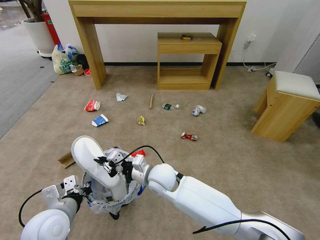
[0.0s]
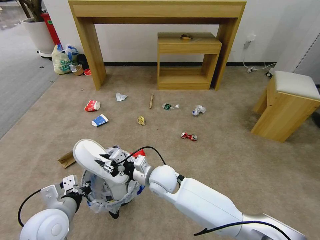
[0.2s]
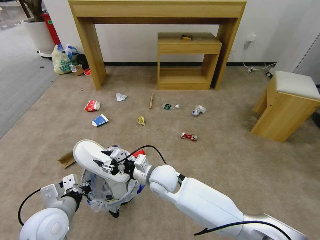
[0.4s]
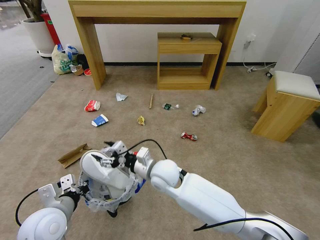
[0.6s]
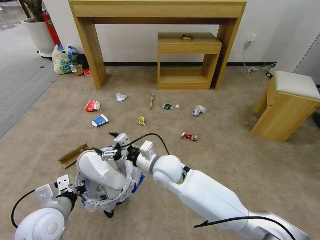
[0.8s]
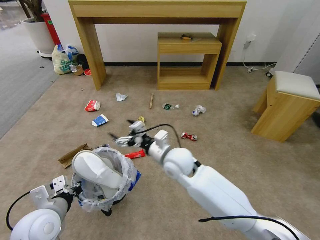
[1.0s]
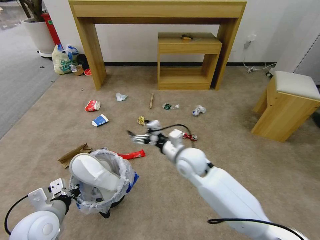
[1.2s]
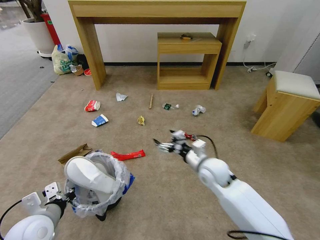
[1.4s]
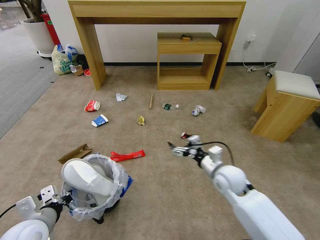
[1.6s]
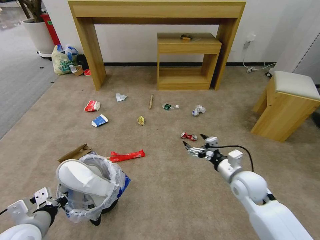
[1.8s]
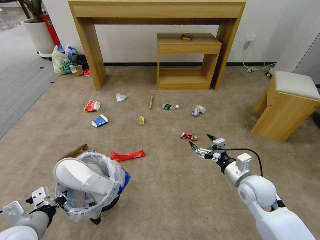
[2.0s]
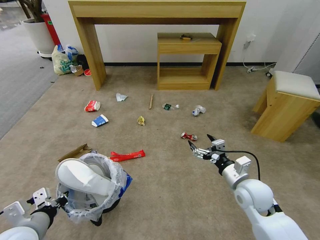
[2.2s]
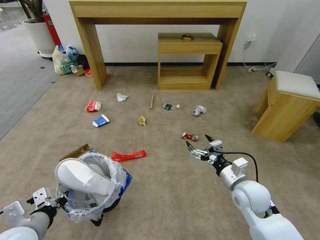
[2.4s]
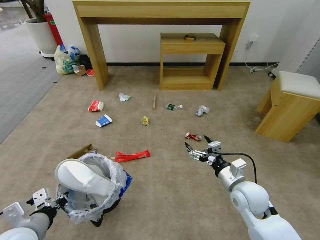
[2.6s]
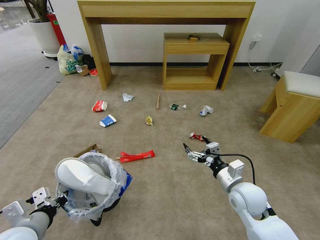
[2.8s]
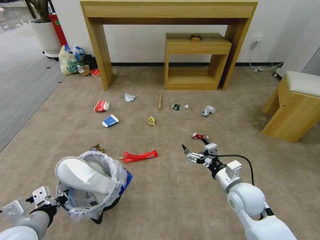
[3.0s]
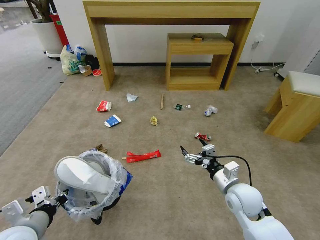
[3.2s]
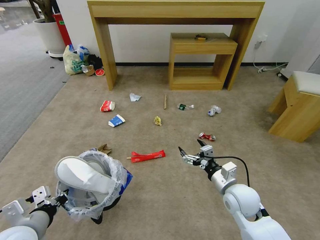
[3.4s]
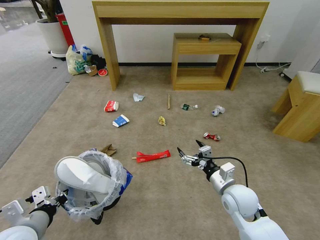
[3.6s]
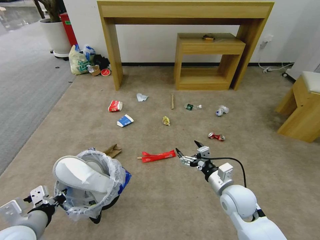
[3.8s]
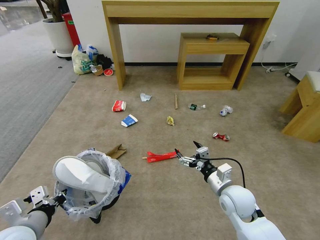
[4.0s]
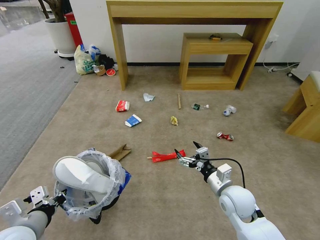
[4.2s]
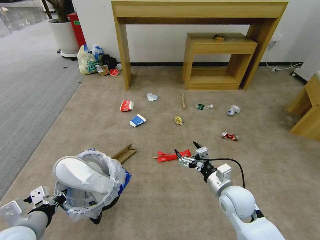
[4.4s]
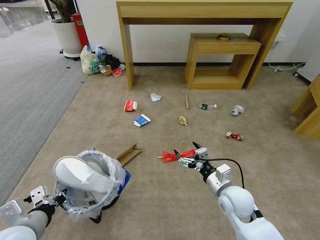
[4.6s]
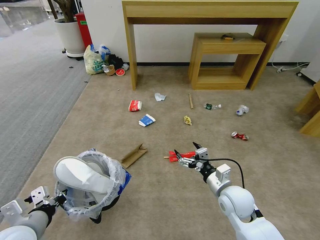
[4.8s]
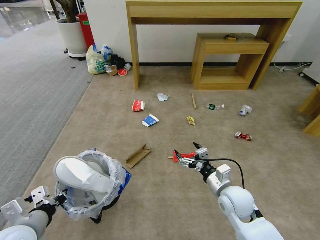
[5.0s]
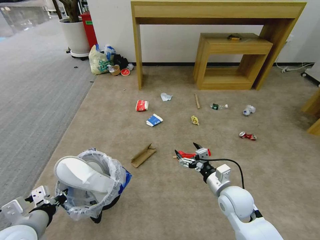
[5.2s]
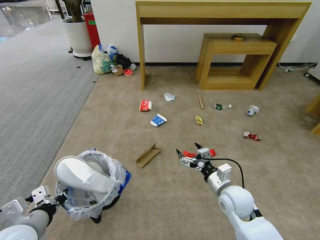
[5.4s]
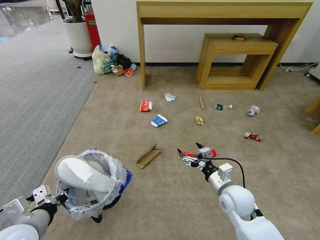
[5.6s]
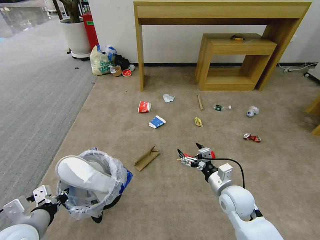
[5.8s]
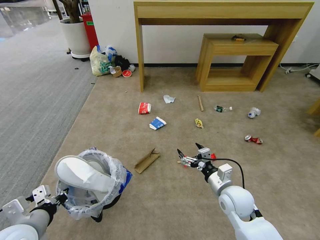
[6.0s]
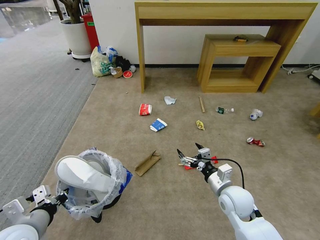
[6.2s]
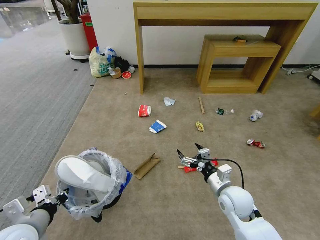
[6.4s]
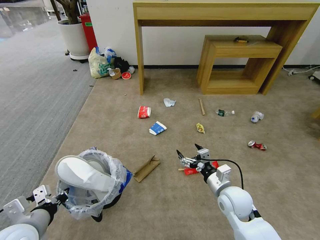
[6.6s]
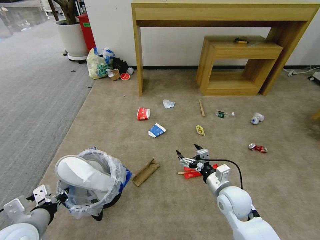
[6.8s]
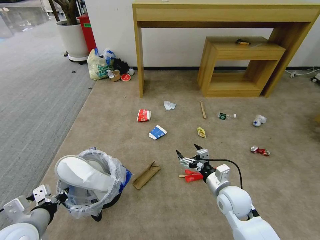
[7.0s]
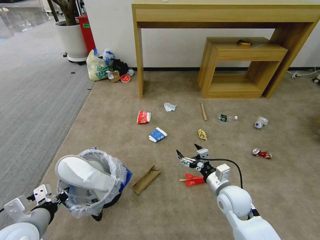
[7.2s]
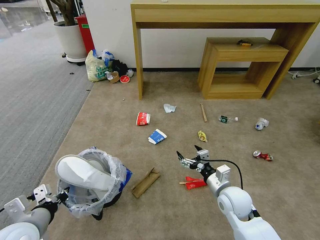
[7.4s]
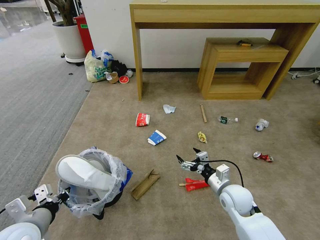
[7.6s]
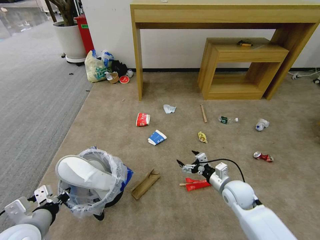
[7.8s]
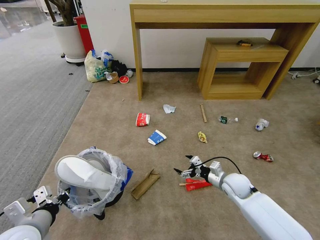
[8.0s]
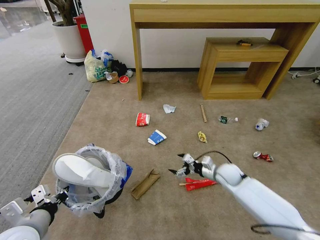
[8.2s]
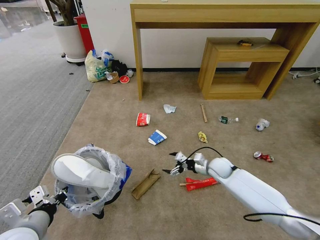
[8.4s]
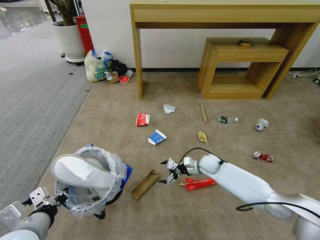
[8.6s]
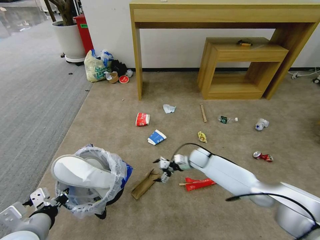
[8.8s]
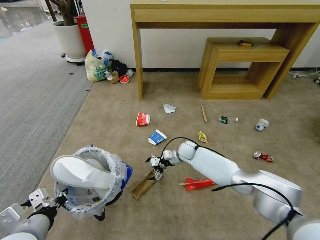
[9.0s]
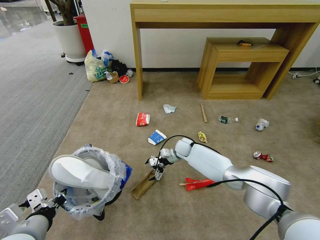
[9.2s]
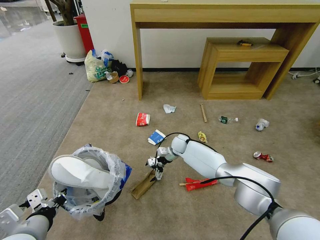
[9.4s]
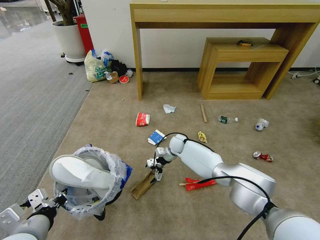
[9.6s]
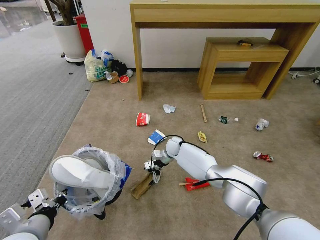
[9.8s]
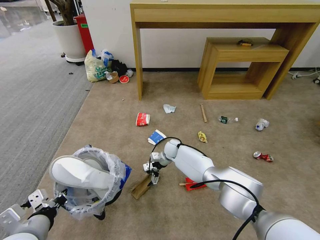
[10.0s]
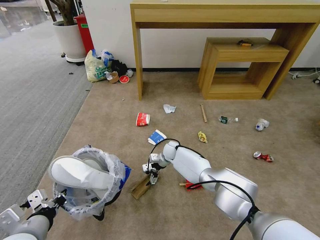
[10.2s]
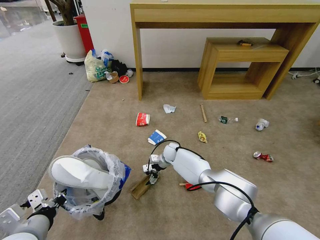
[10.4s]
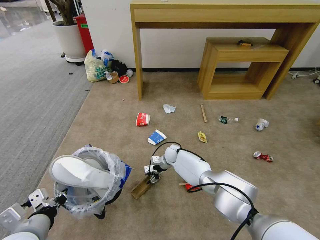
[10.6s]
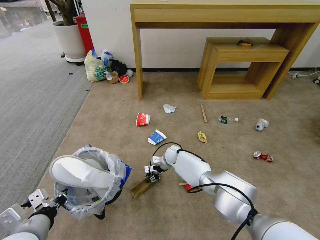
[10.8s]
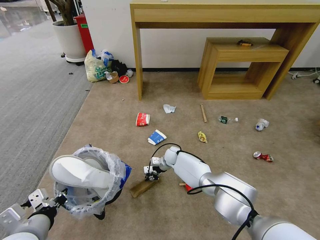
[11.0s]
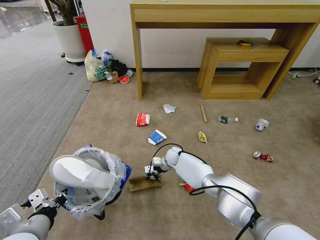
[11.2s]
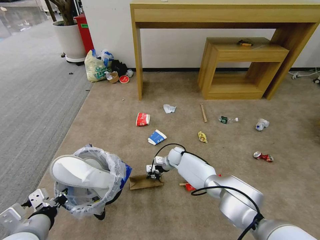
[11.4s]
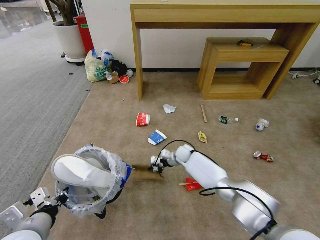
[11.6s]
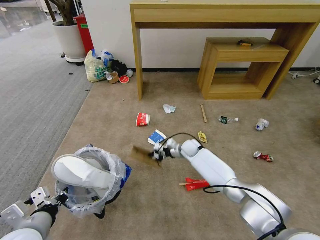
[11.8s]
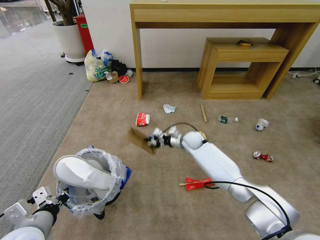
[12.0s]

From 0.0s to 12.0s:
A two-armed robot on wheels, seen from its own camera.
Task of the whole recording: Pick up the trash bin and place the garbage on the floor into it.
From 0.0s to 1.6s: The right gripper moves to the right, some 25 cm, and opens. The left gripper moves to the left, some 5 cm.
From 1.6s to 3.0s: The right gripper heads backward, covering roughly 5 cm.
From 7.6s to 9.0s: The right gripper travels forward and to the left by about 25 cm.
From 9.0s to 10.4s: The right gripper shifts about 5 cm to the left.
From 10.4s to 12.0s: The right gripper goes some 15 cm upward and to the right, and closes.

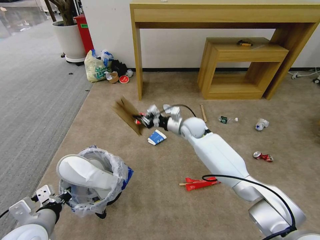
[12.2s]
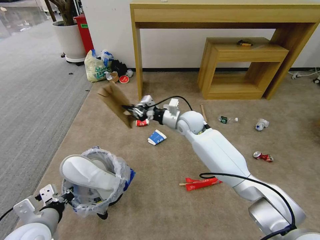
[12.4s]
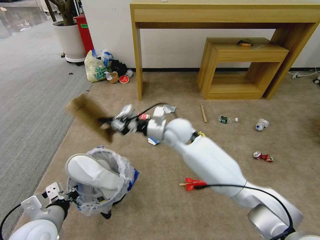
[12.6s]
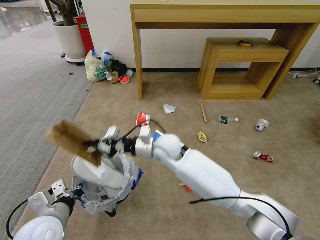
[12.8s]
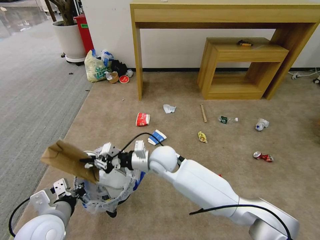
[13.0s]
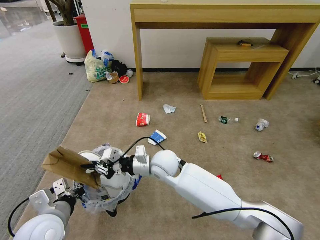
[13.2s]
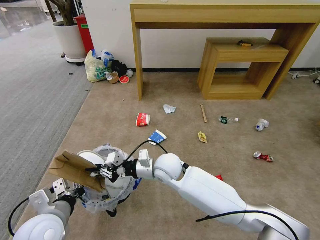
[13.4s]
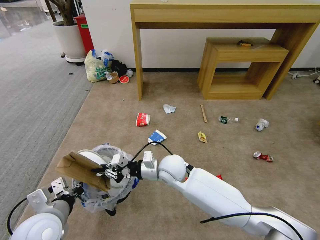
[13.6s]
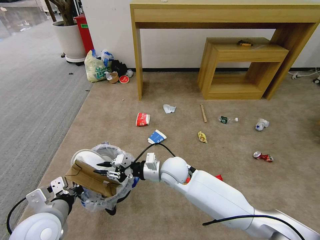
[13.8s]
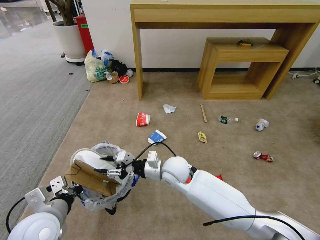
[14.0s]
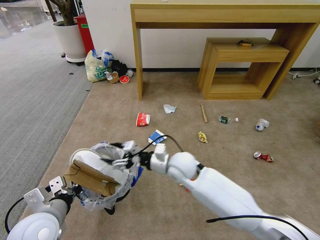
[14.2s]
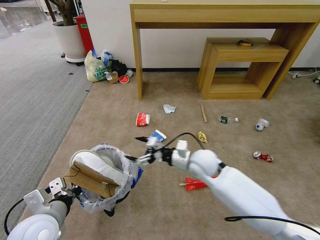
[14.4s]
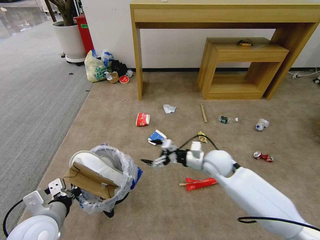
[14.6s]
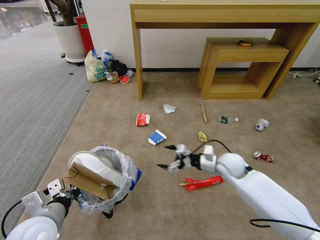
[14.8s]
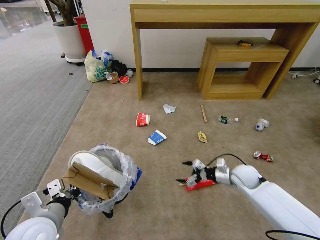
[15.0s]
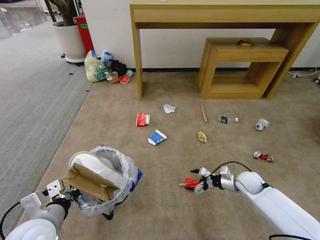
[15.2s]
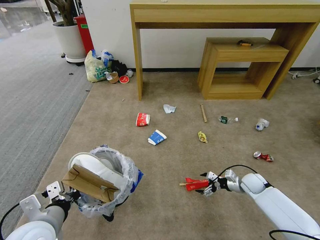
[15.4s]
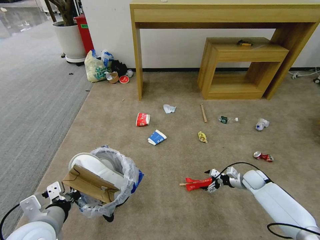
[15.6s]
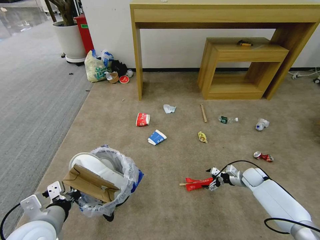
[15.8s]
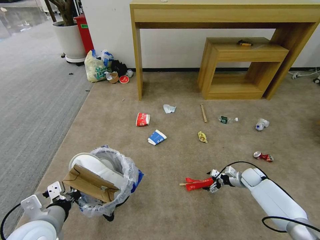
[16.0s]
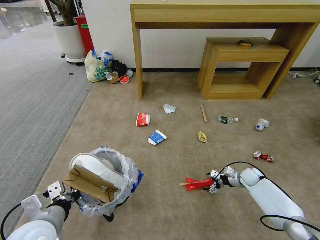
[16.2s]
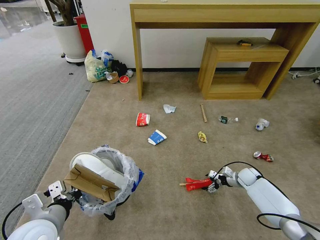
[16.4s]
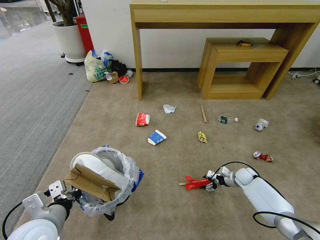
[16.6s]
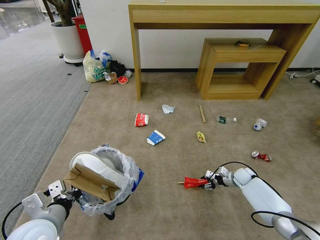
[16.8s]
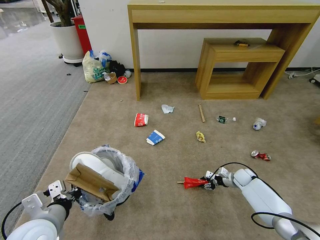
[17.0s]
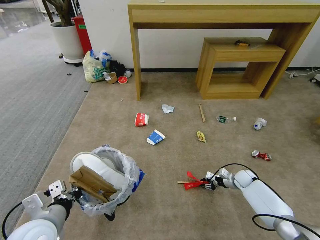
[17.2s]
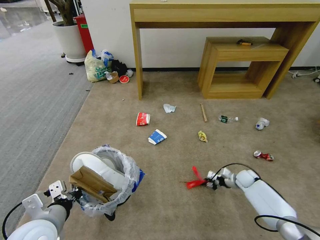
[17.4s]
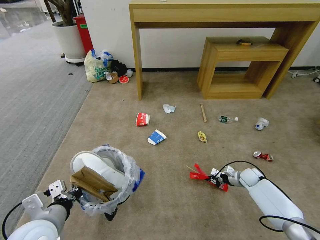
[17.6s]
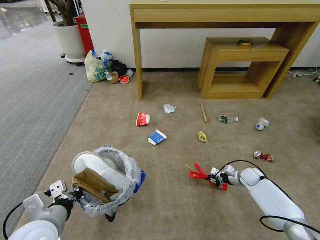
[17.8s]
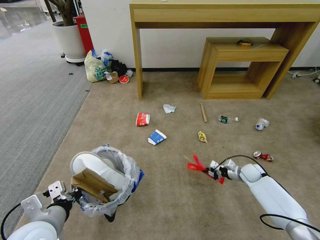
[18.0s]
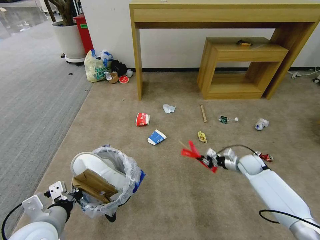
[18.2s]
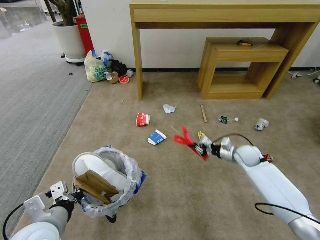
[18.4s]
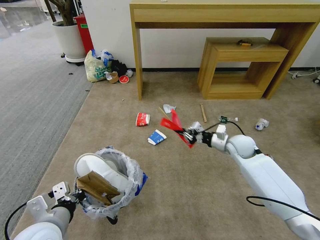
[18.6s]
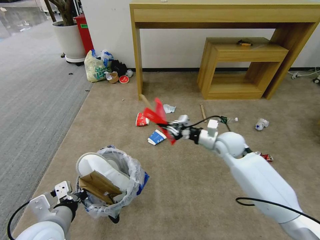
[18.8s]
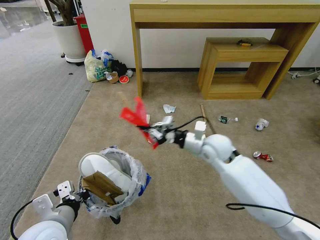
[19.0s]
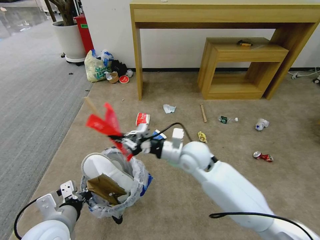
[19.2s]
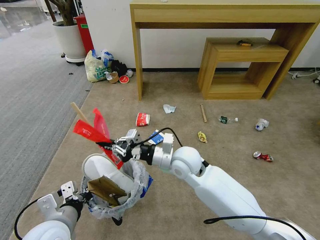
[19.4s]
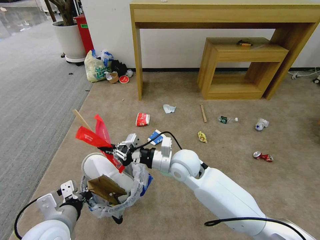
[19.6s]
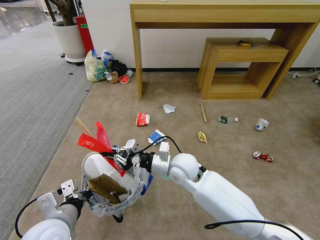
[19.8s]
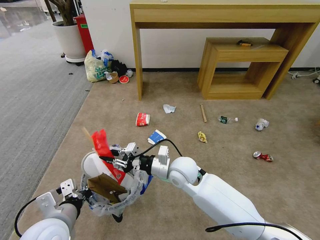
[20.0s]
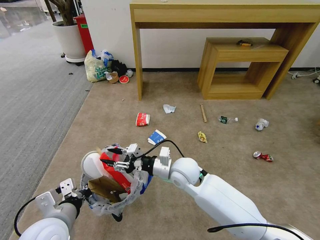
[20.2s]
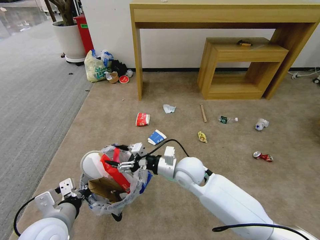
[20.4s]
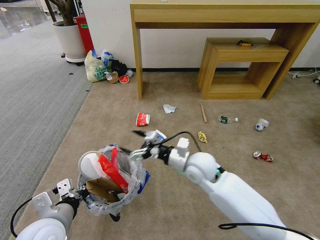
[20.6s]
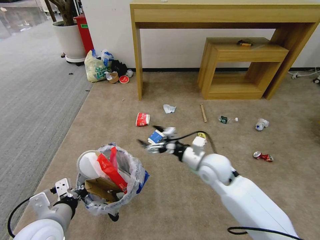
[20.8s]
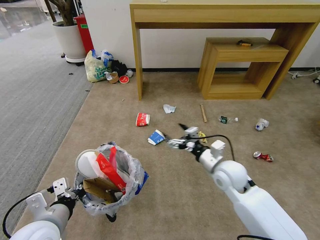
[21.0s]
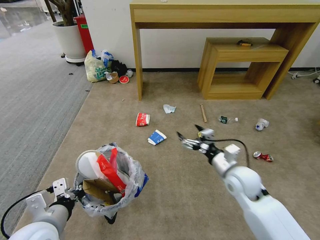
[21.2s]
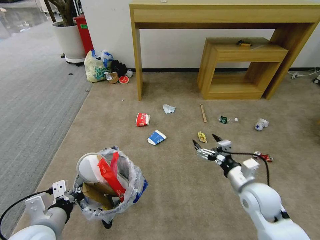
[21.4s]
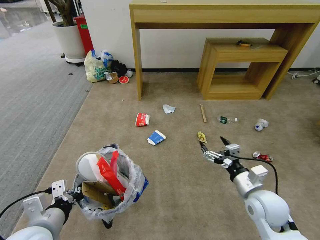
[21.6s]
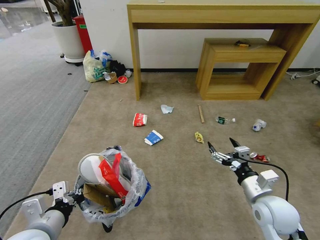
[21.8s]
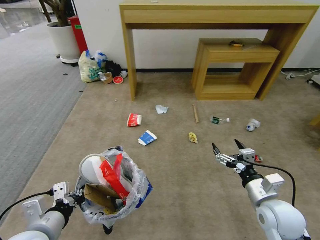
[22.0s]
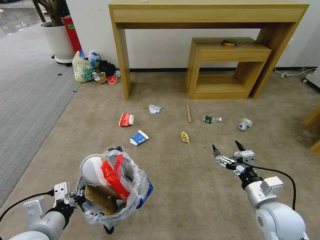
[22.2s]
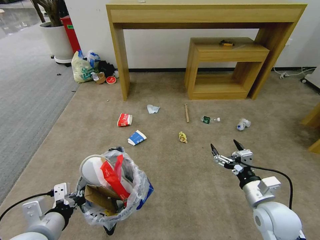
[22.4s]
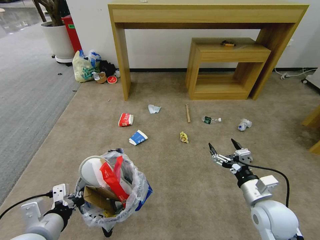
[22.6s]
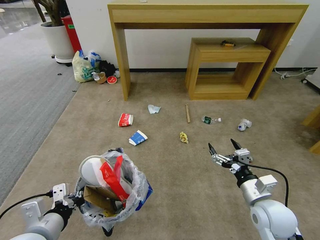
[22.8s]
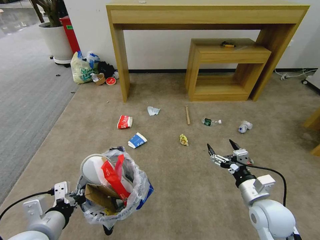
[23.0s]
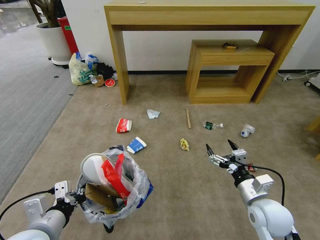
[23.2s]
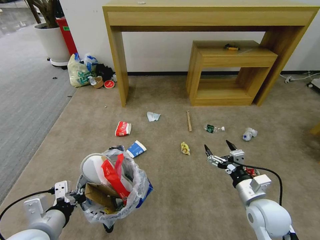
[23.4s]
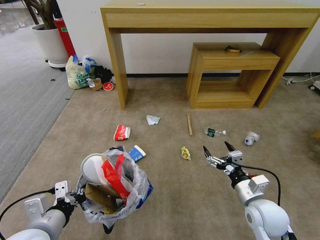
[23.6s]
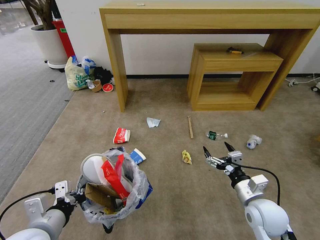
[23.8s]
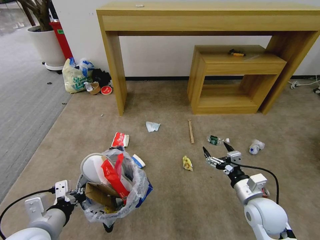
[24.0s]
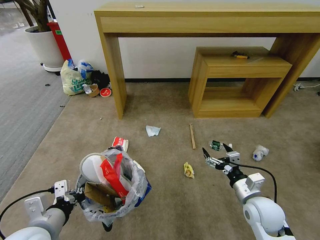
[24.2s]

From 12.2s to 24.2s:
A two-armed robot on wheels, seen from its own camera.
Task of the whole recording: Pick up the trash bin and place the garbage on the floor into it.
From 12.2s to 13.8s: The right gripper goes some 20 cm backward and to the left.
From 13.8s to 15.2s: The right gripper shifts approximately 35 cm to the right, and opens up.
From 15.2s to 16.6s: The right gripper moves downward, forward and to the right, about 10 cm.
From 16.6s to 18.2s: The right gripper moves upward, about 10 cm, and closes its fingers.
From 18.2s to 19.8s: The right gripper shifts about 35 cm to the left and upward.
From 19.8s to 21.2s: The right gripper goes about 20 cm to the right, and opens.
From 21.2s to 22.6s: The right gripper moves backward and to the right, some 10 cm.
